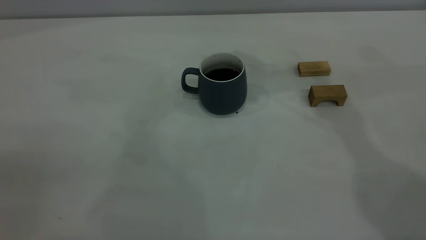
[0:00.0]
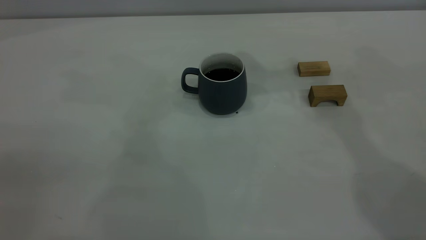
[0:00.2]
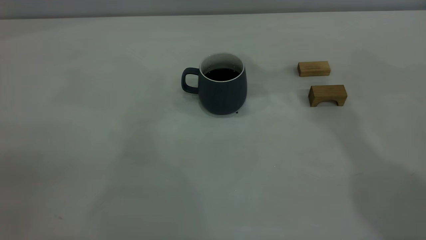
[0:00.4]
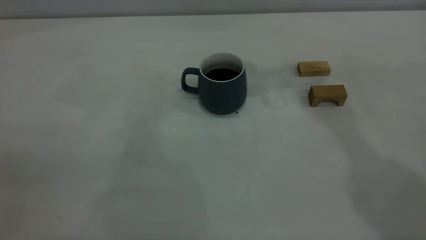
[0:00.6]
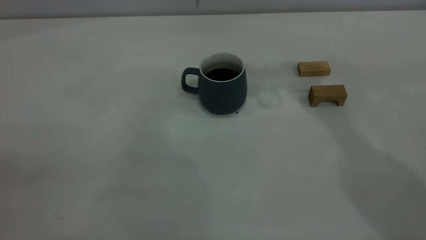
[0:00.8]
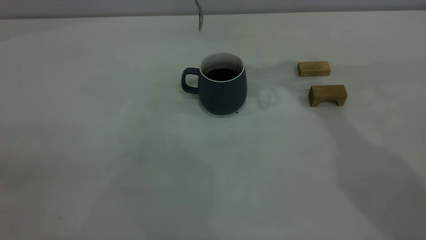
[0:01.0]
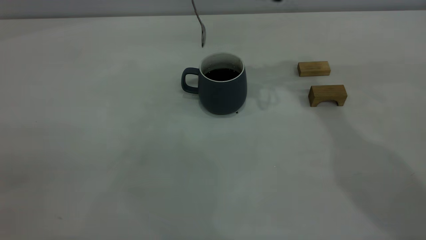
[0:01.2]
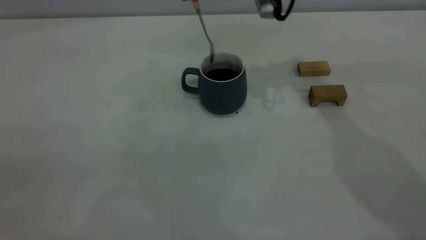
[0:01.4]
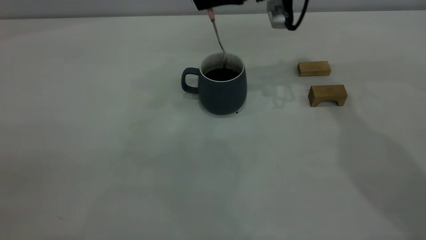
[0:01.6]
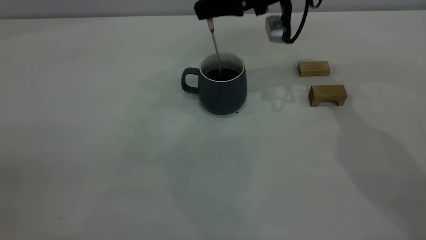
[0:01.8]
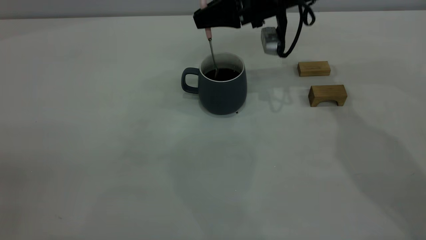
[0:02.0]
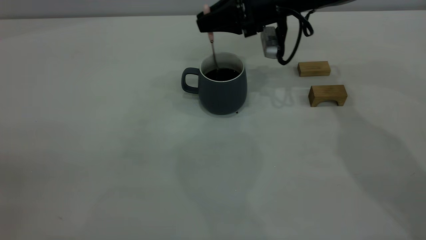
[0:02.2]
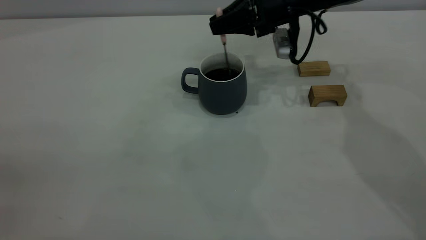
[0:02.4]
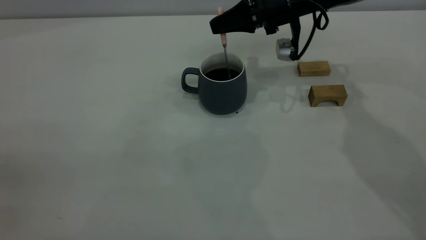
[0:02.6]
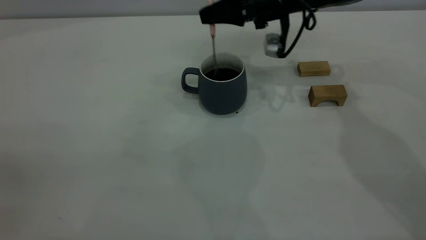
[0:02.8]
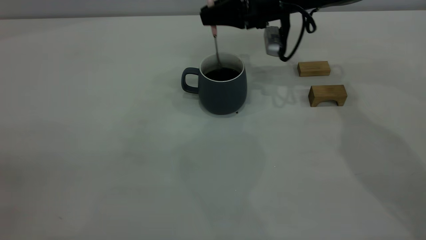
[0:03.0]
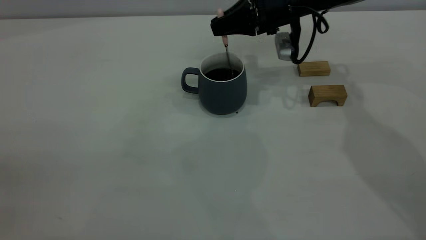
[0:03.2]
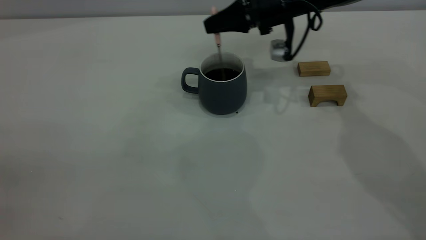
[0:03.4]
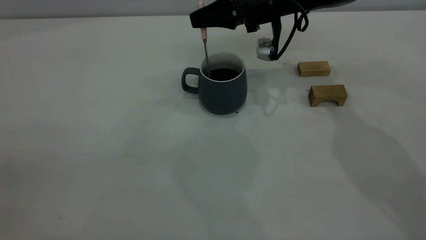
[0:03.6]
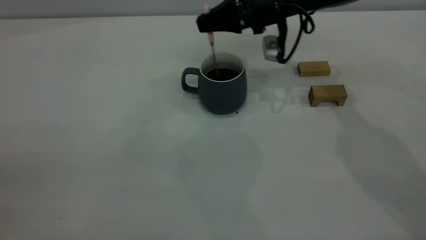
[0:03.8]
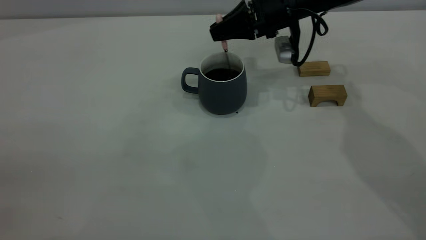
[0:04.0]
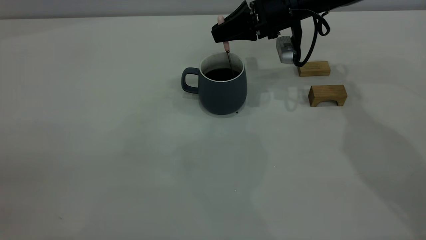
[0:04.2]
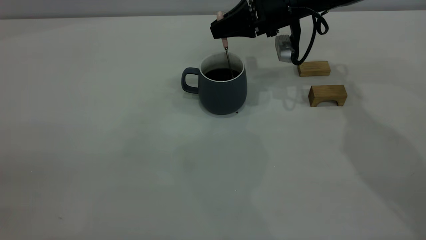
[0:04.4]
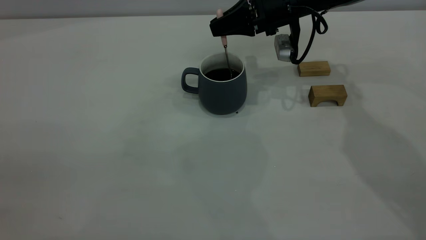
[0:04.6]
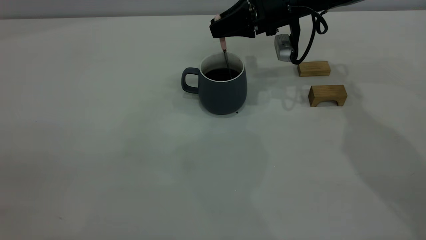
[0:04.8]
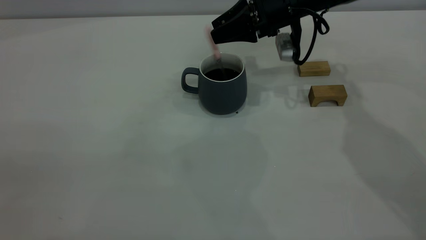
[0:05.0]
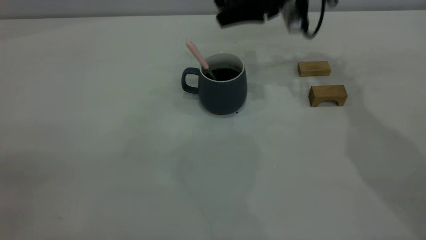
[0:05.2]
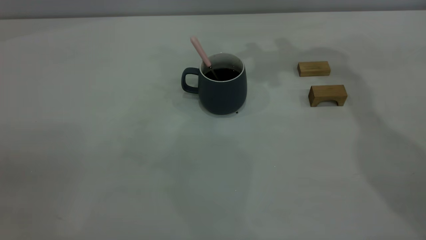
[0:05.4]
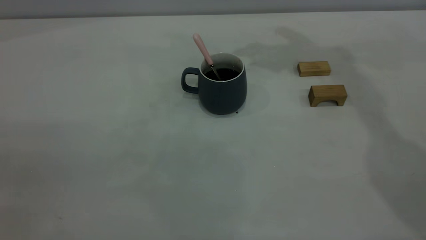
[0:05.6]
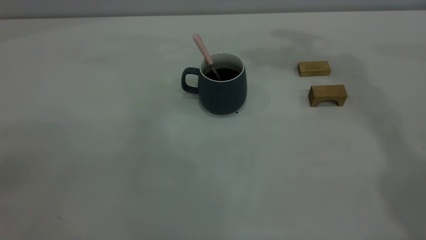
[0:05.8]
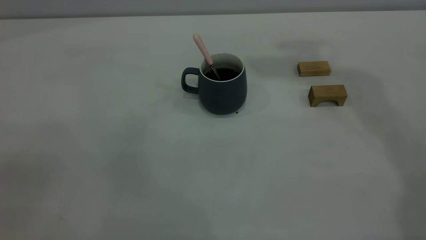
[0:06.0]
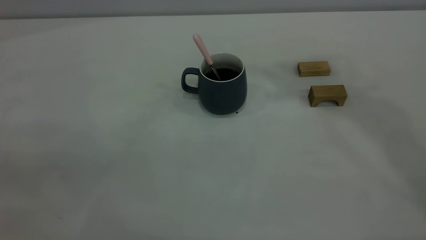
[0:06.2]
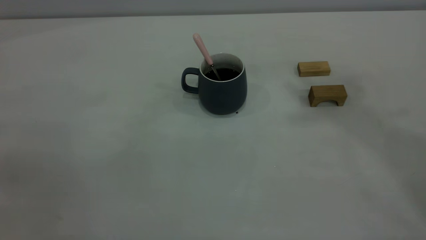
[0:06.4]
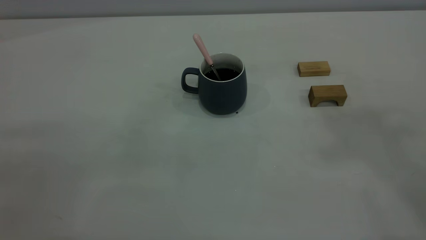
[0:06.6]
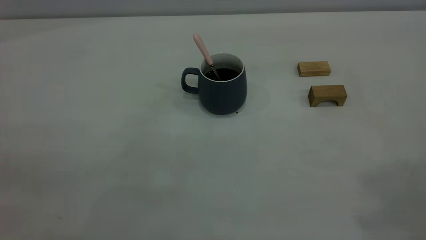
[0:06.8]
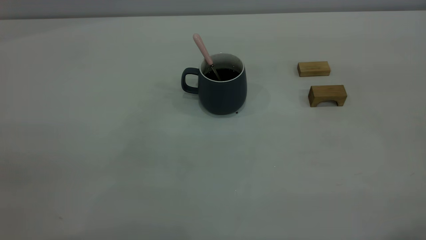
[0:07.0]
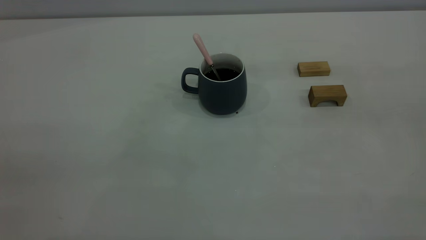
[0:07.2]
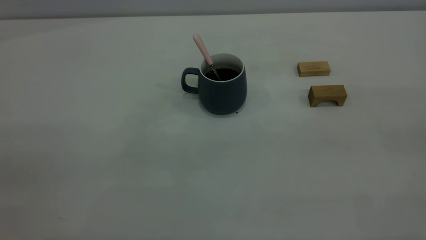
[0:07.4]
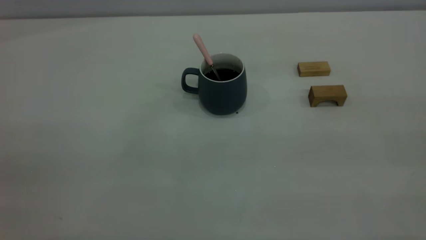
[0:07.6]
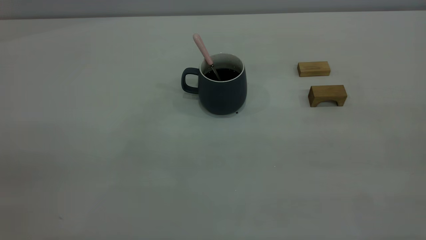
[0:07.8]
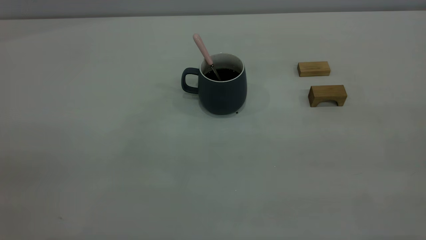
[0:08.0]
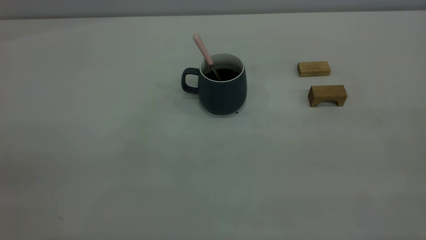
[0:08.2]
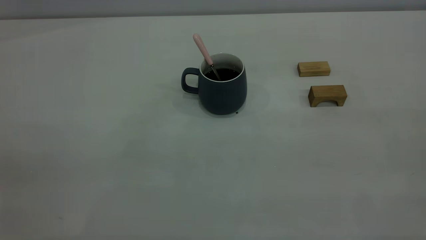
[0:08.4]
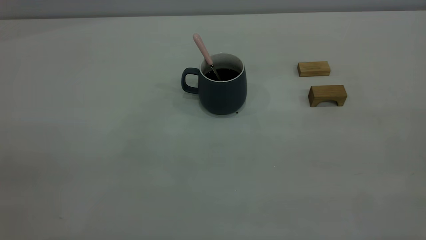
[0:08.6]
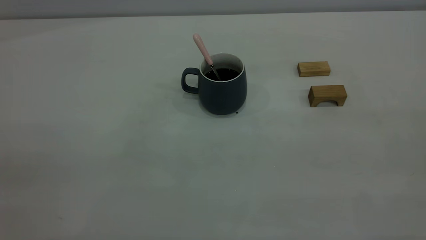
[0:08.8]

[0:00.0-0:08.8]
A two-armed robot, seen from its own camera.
Step, 0:00.0 to 0:05.0: Stir the coffee in the cup.
0:00.0 to 0:01.4: The right gripper heads downward, covering roughly 15 cm.
0:01.4 to 0:03.0: The right gripper shifts roughly 10 cm downward.
0:03.0 to 0:04.4: The grippers stay close to where they were, moving slightly.
0:04.4 to 0:05.8: The right gripper heads upward, covering about 35 cm, and opens.

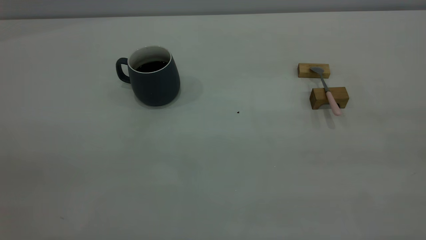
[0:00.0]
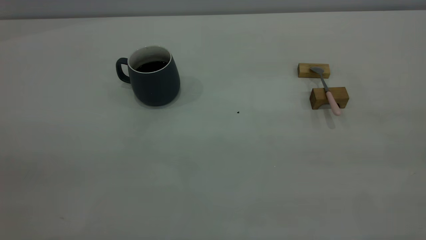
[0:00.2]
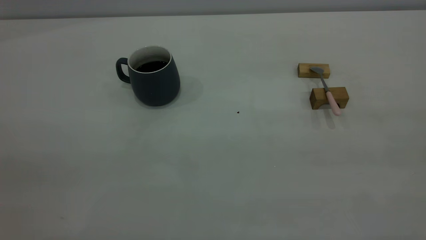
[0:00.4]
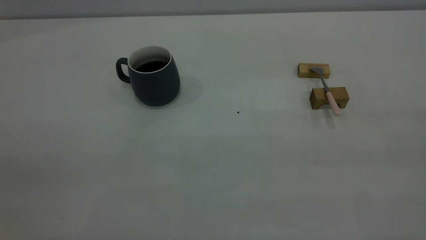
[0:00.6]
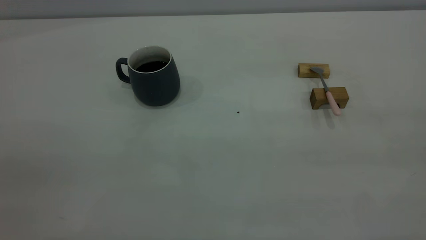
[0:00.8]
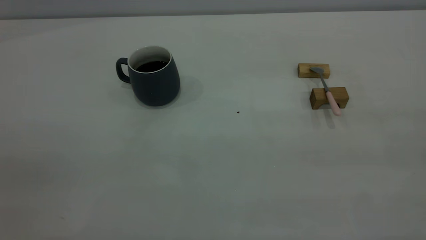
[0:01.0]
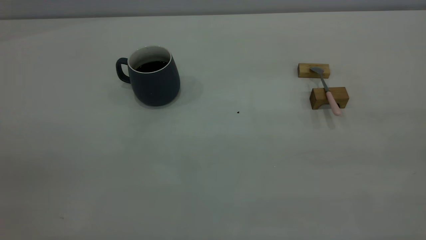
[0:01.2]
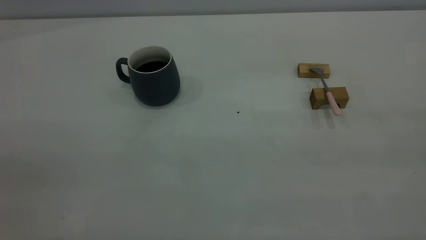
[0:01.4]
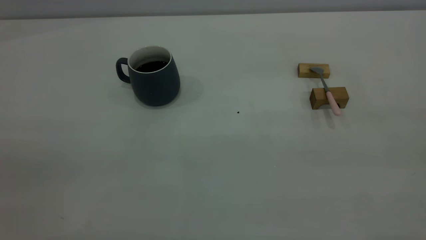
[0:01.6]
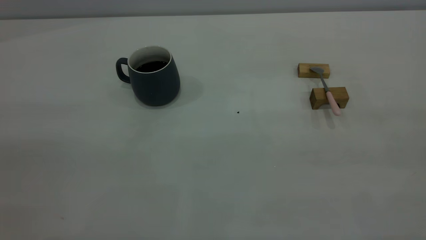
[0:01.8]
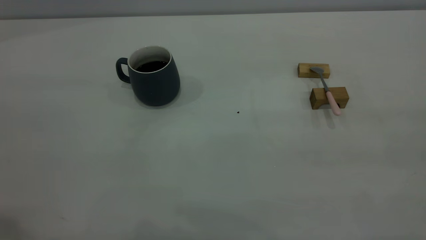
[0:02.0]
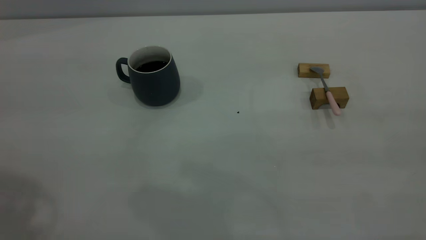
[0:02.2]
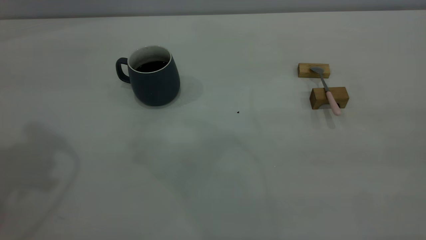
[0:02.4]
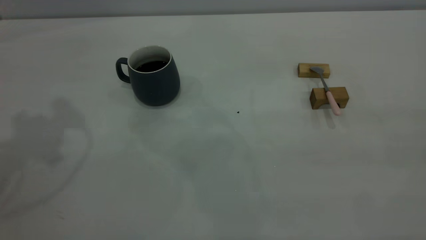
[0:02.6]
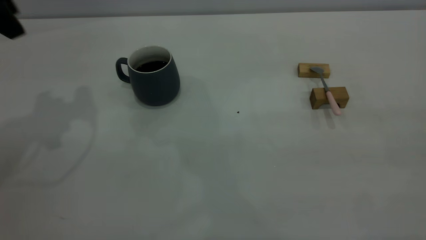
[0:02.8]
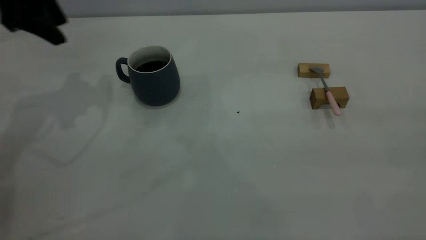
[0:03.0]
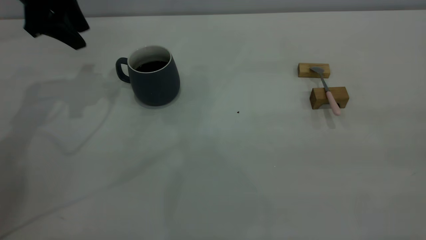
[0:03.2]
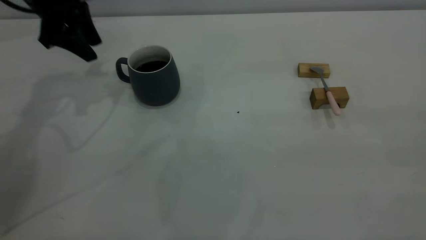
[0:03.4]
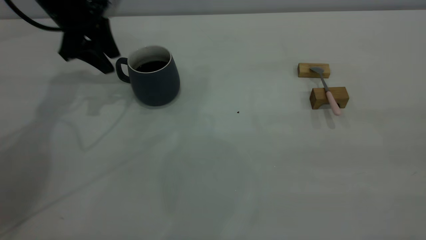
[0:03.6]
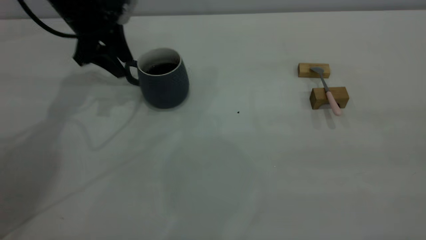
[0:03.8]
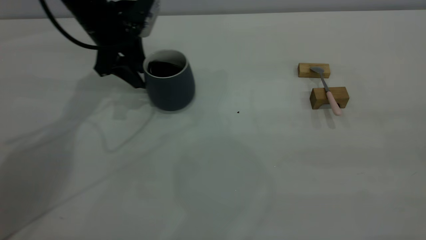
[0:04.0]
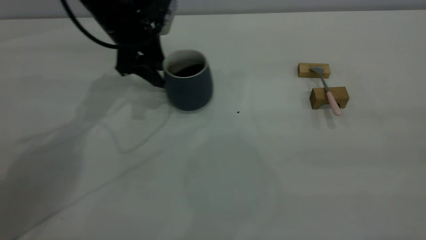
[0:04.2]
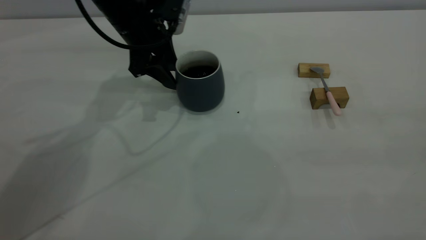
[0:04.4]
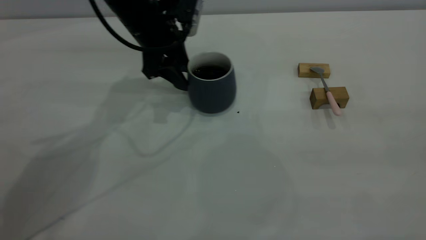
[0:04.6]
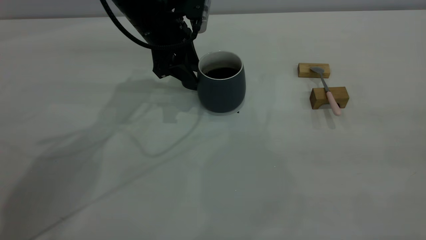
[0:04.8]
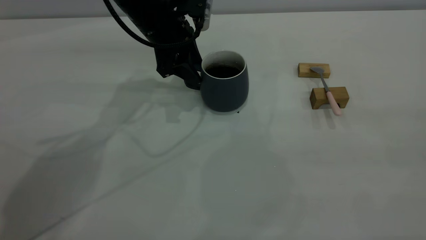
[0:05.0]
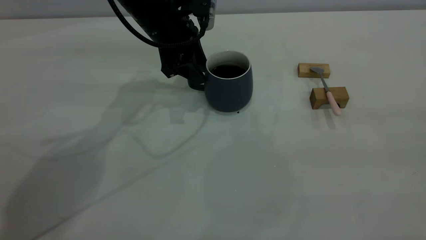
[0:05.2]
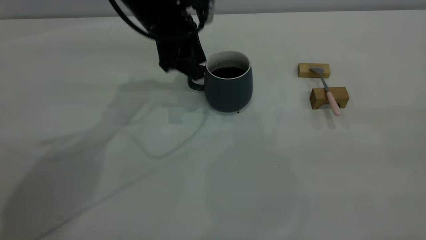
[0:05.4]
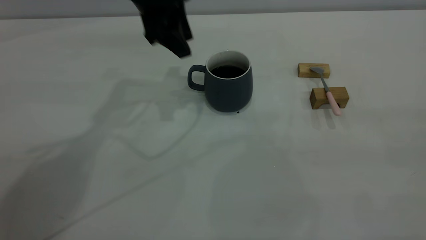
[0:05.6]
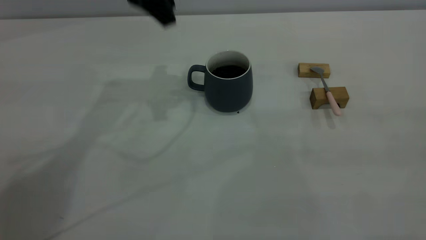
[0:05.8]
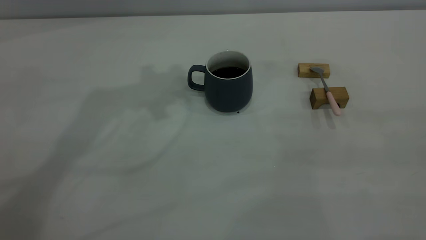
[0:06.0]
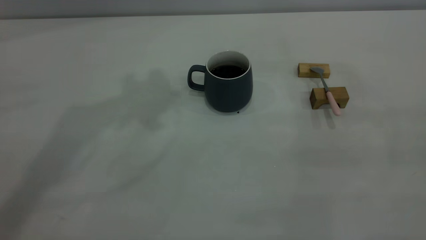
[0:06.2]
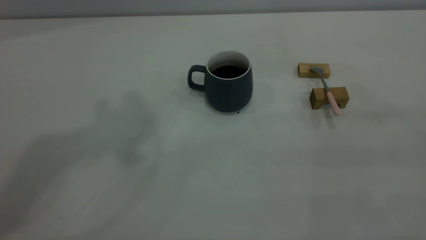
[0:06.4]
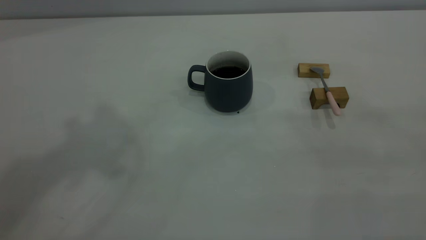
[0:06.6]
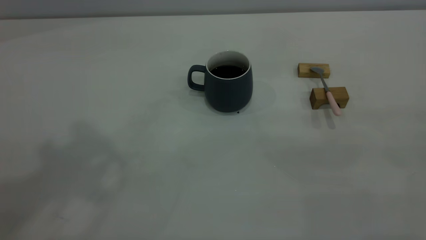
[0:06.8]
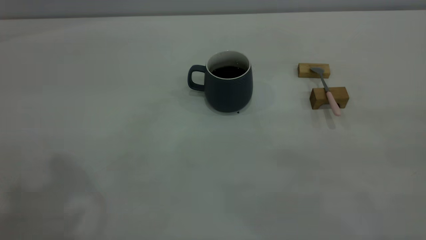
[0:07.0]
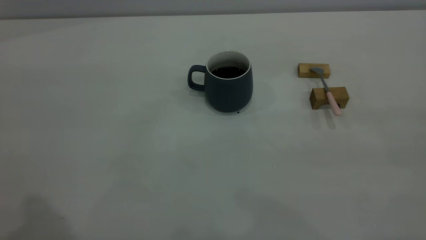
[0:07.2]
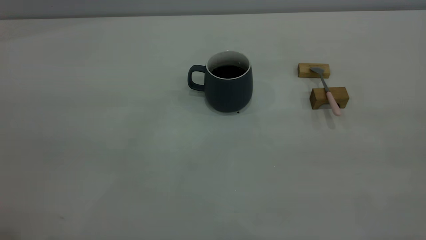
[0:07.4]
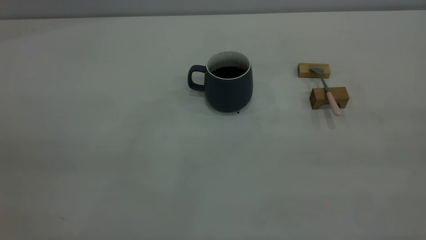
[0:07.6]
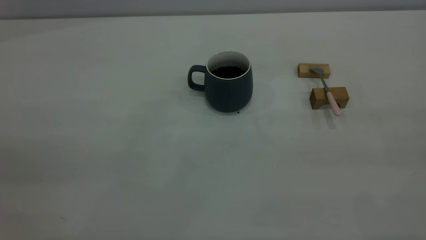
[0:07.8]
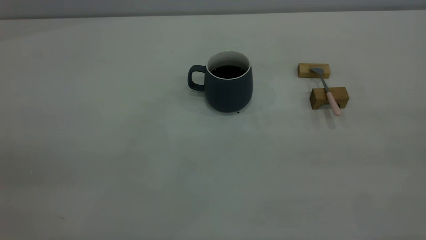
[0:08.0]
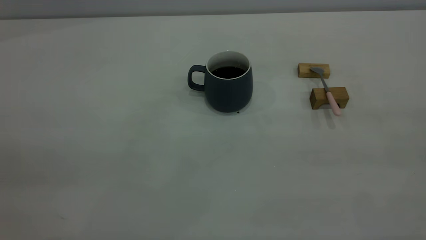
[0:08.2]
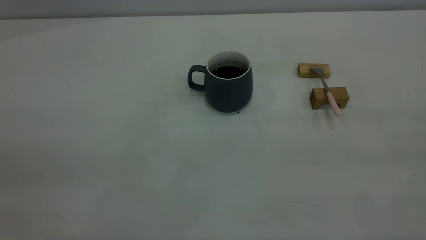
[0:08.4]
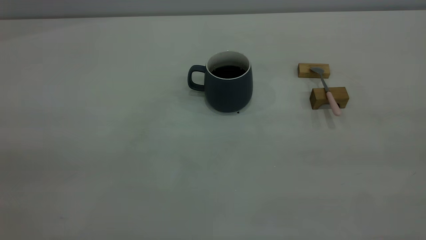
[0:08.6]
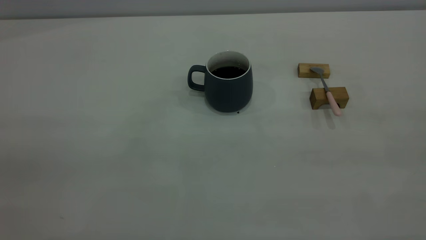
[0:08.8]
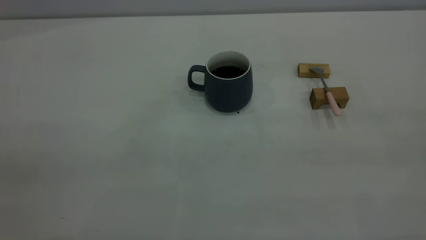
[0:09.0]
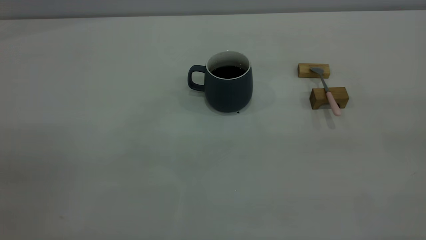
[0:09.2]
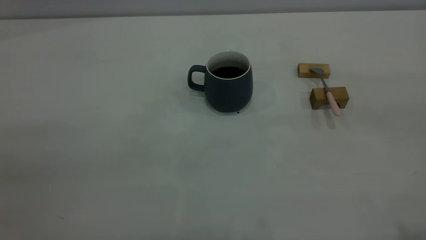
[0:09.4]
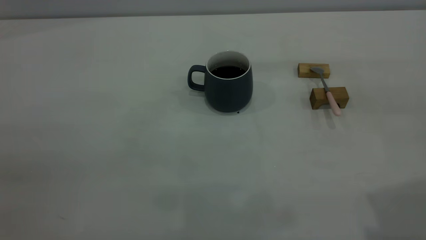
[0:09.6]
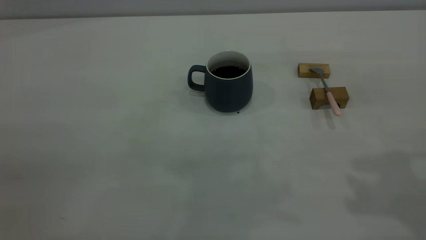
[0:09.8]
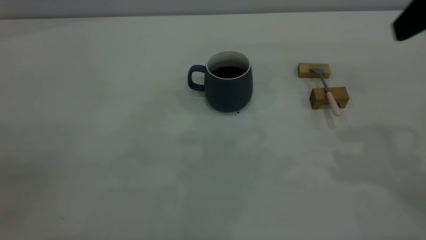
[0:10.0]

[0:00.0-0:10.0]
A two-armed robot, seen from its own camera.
Step, 0:00.0 to 0:05.4: Move the cup with coffee to the center of view.
0:00.0 to 0:01.4: Both grippers stay put.
0:01.4 to 0:02.8: The left gripper shifts about 40 cm forward.
0:02.8 to 0:04.2: The left gripper heads downward, to the right and forward, covering roughly 20 cm.
0:04.2 to 0:05.8: The left gripper goes about 15 cm upward.
0:05.8 to 0:07.2: The left gripper shifts about 30 cm backward.
0:08.6 to 0:10.0: The right gripper heads forward, covering about 25 cm, and opens.
